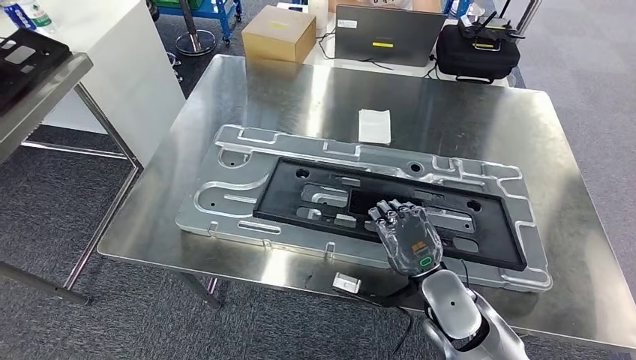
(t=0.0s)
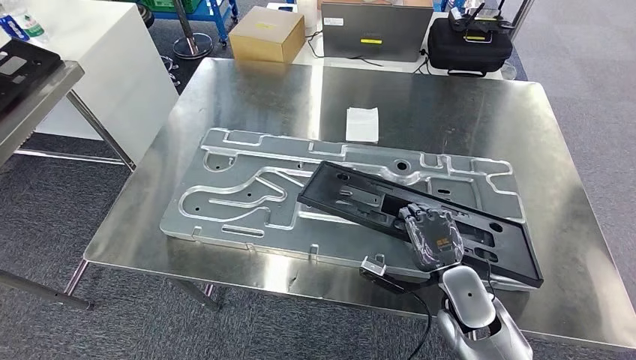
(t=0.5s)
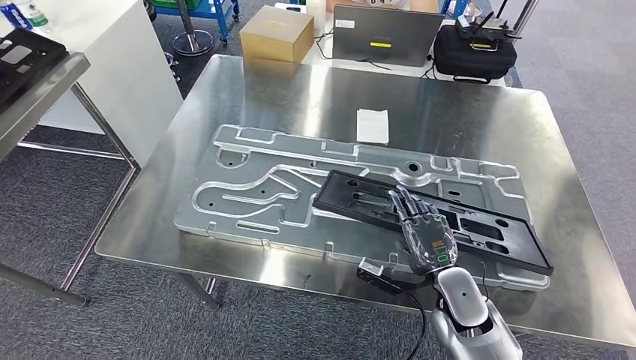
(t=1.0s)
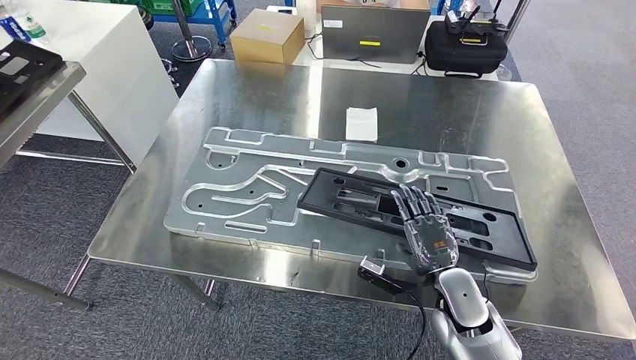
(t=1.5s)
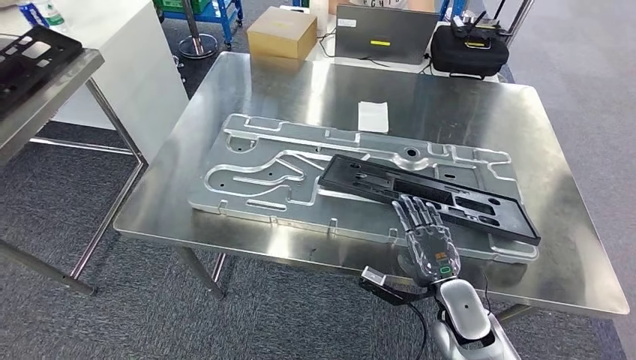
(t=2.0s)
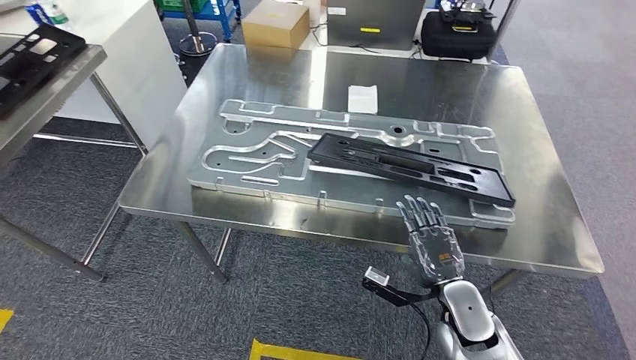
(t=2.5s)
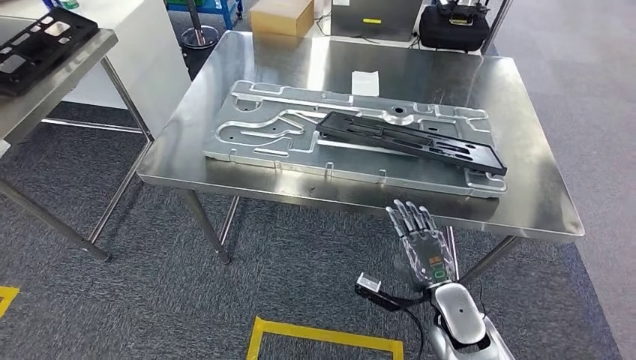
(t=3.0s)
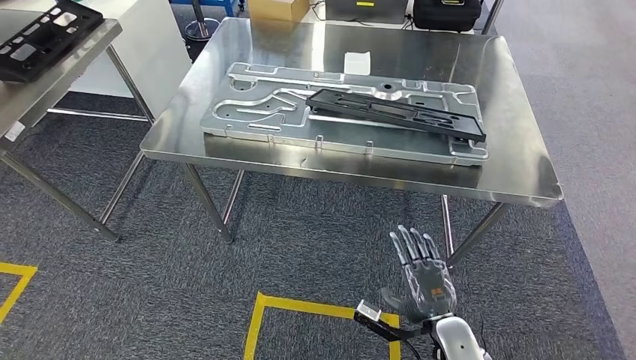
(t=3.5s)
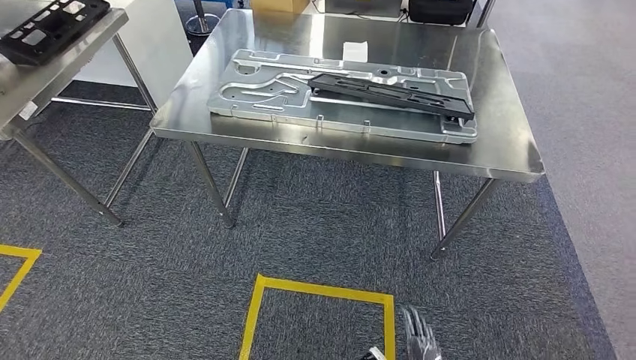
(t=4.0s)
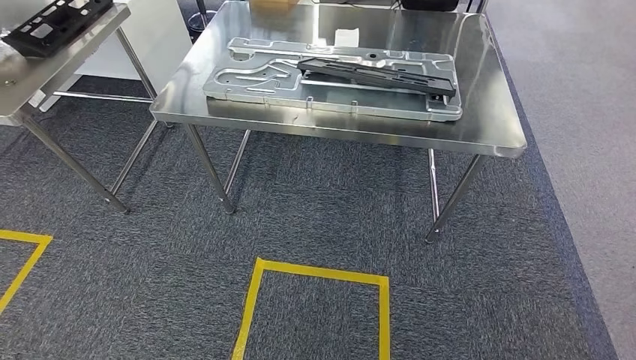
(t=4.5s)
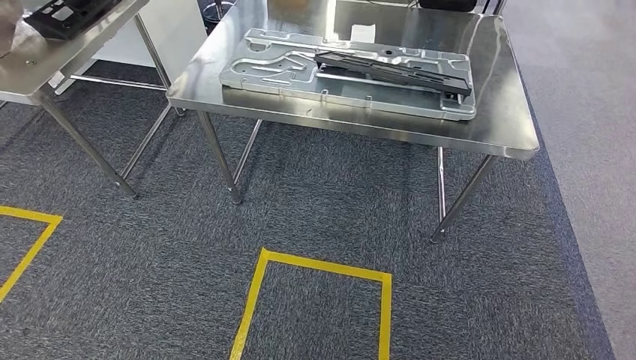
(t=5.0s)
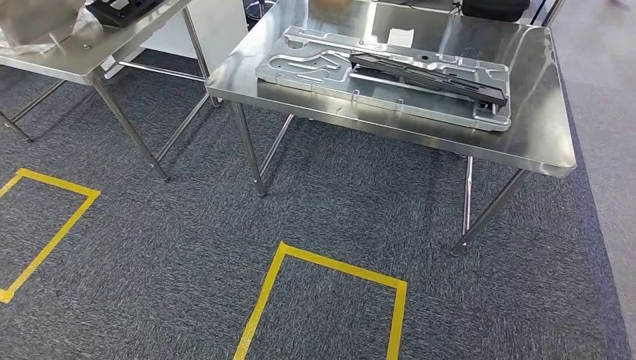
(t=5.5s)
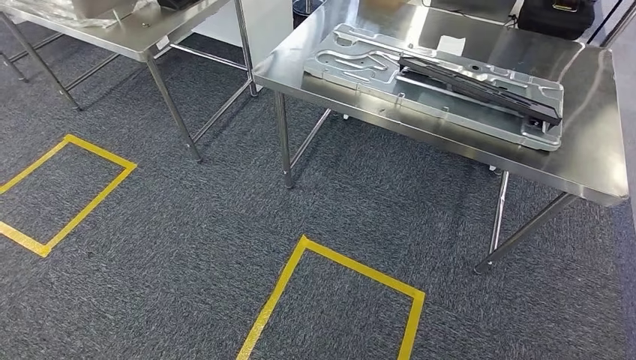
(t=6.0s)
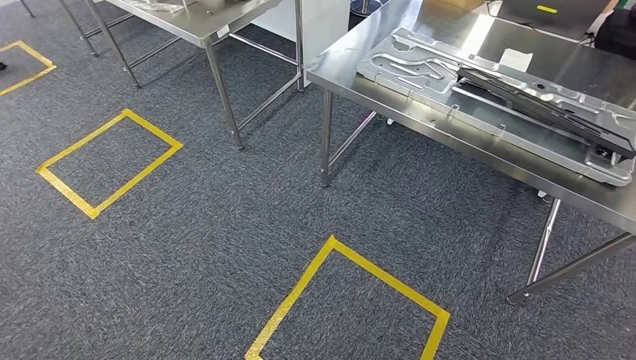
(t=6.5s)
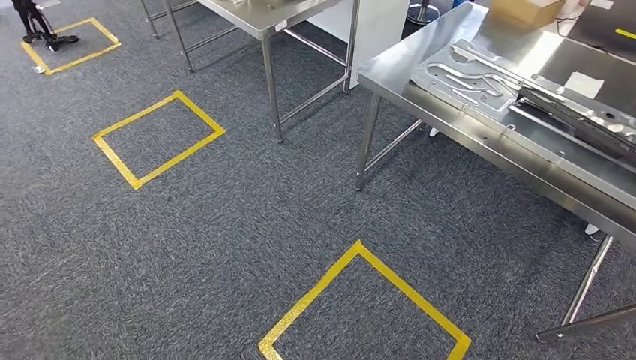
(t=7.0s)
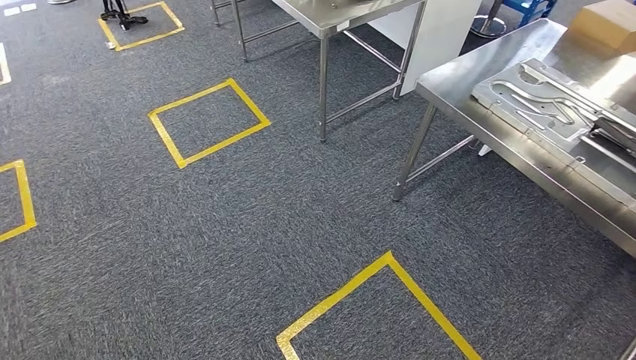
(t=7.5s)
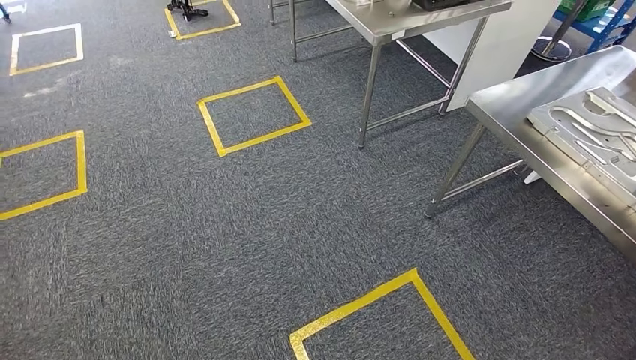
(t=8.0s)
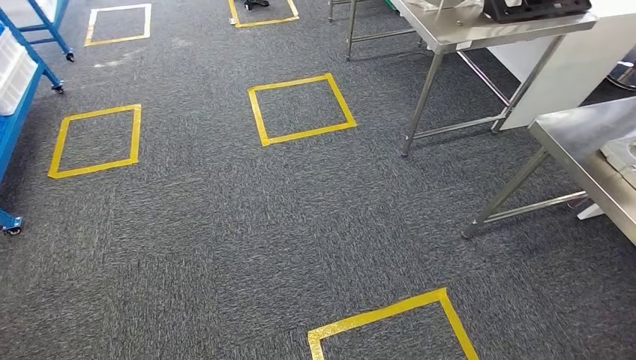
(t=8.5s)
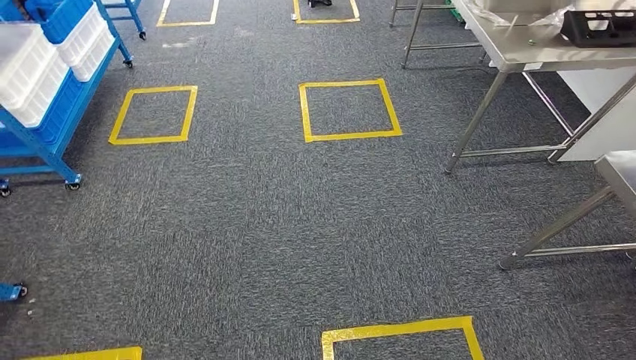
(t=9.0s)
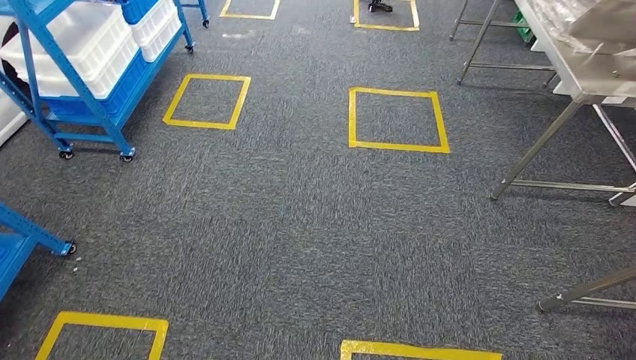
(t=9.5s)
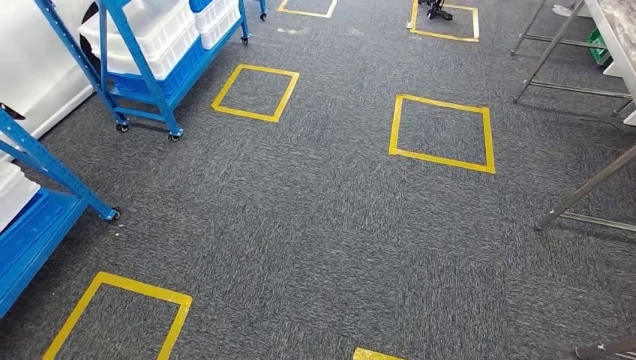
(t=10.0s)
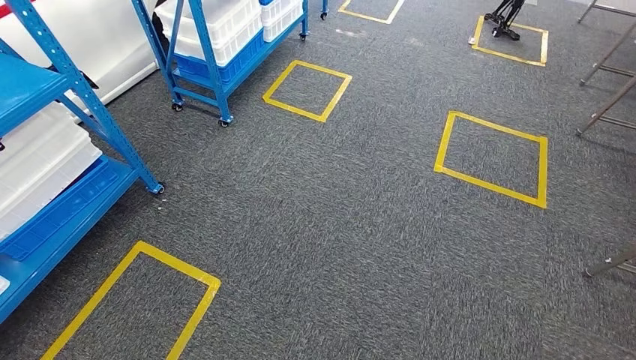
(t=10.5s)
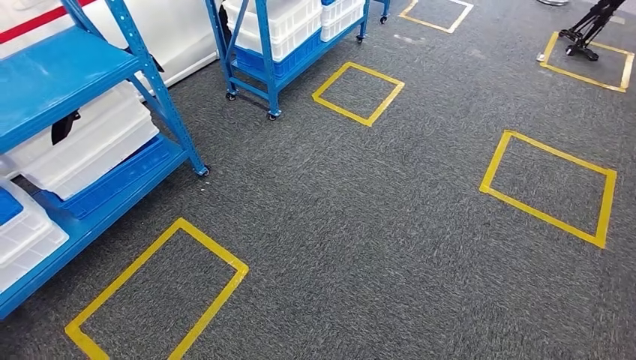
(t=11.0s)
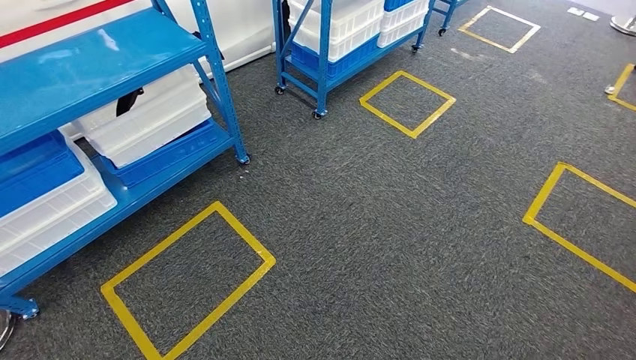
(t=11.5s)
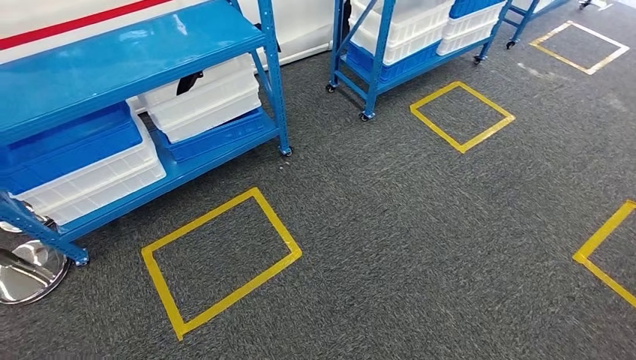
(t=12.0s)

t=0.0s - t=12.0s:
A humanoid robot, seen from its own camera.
Step, t=0.0s - t=4.5s: Insert the large material into the corresponding slot on the workbench.

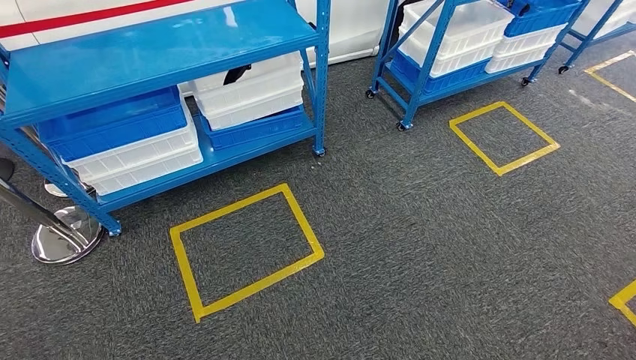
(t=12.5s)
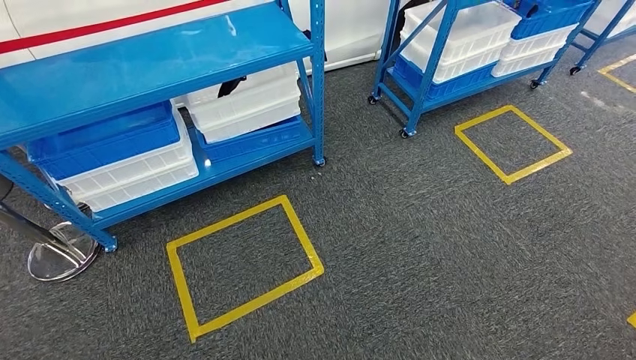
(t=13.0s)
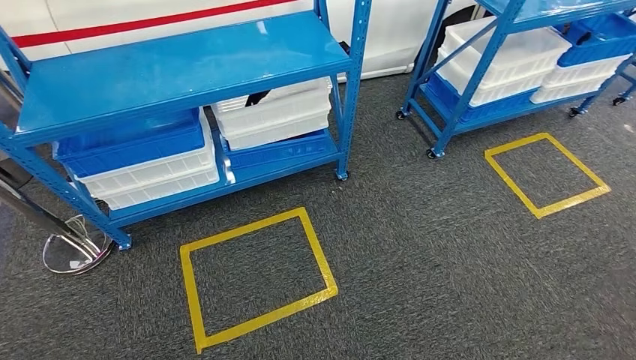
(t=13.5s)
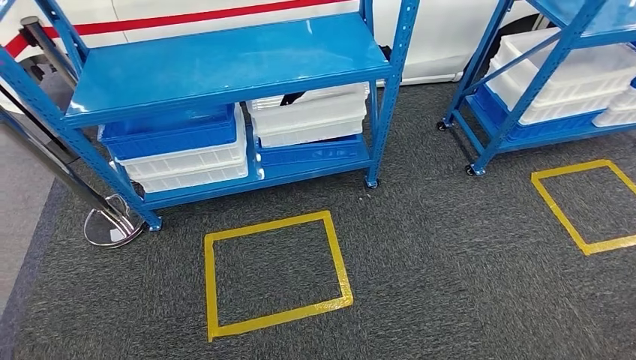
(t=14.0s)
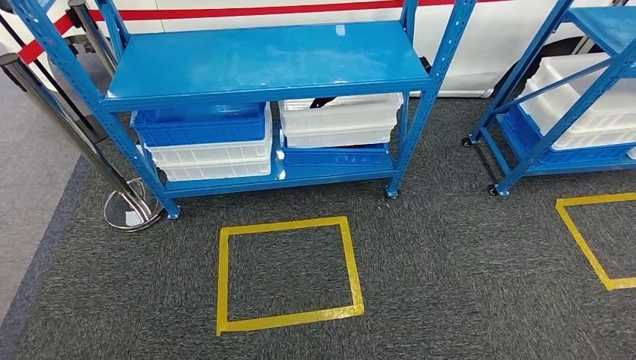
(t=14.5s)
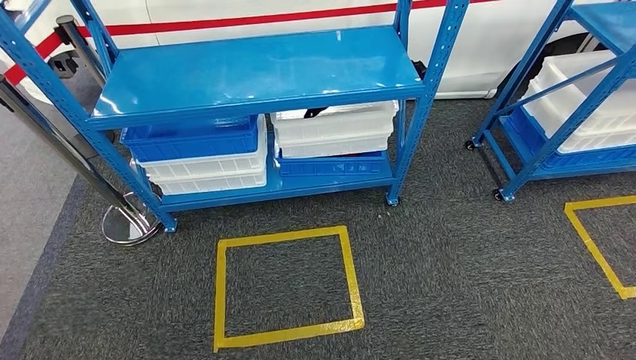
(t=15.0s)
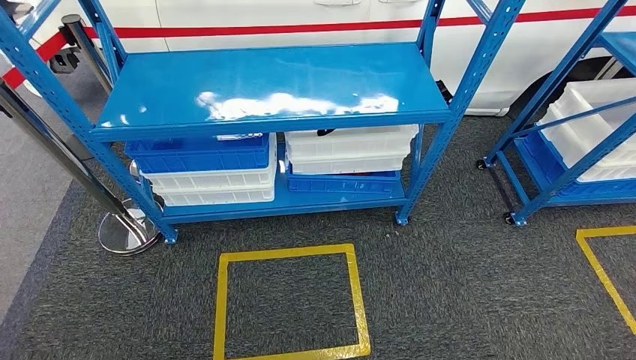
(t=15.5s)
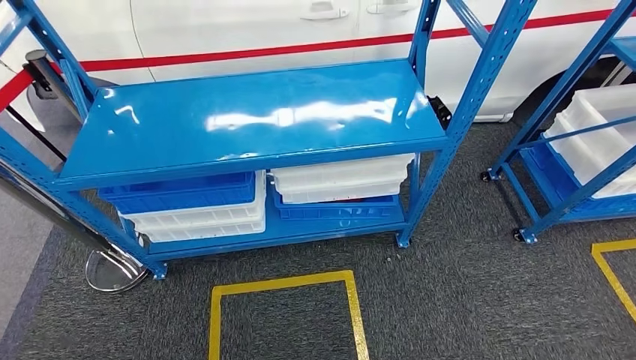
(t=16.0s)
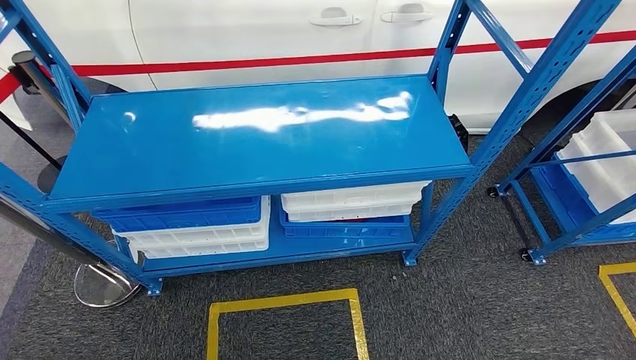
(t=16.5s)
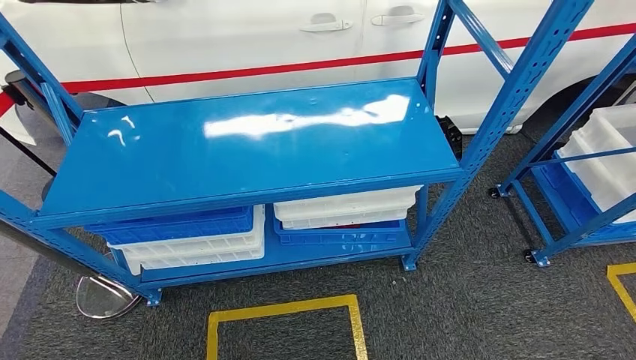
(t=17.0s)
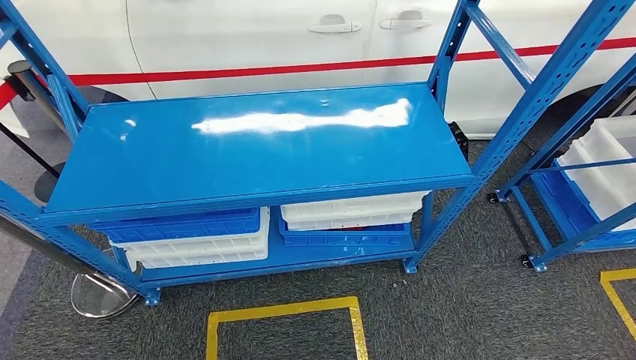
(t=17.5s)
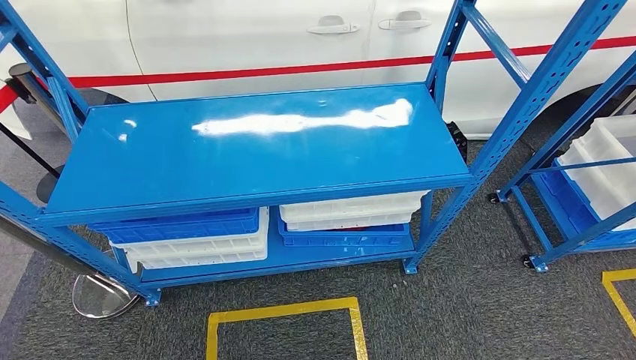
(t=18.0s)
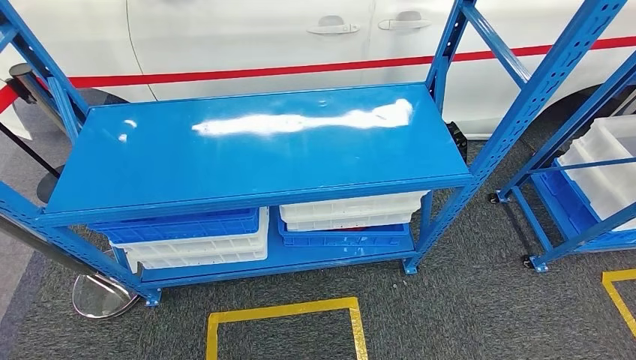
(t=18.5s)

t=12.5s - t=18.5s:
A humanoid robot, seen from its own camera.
Step, t=12.5s - t=18.5s: Return to the initial position at the shelf.

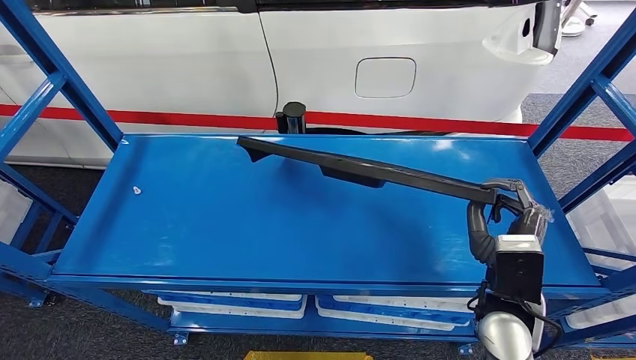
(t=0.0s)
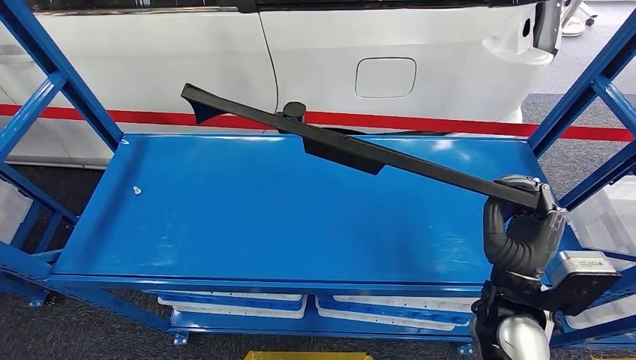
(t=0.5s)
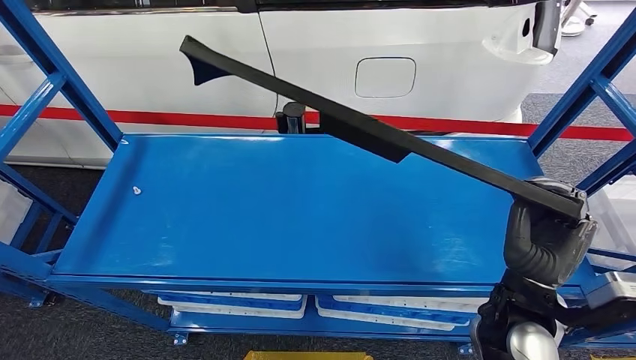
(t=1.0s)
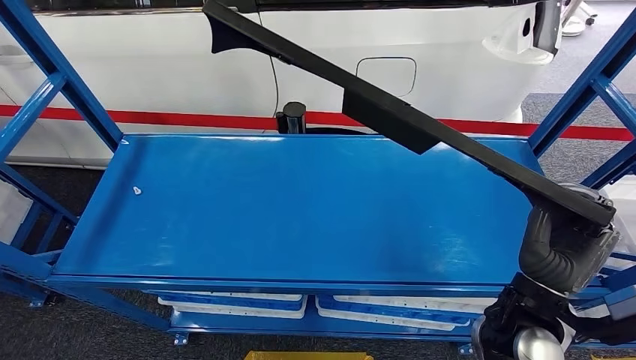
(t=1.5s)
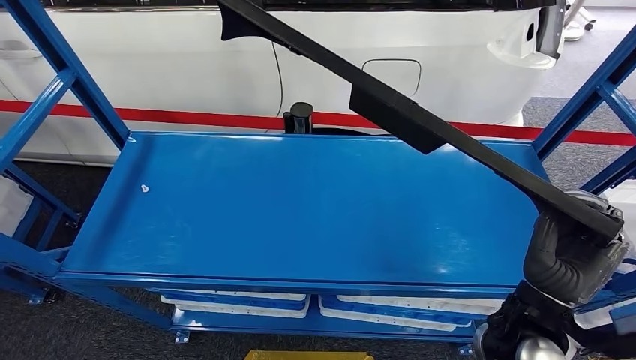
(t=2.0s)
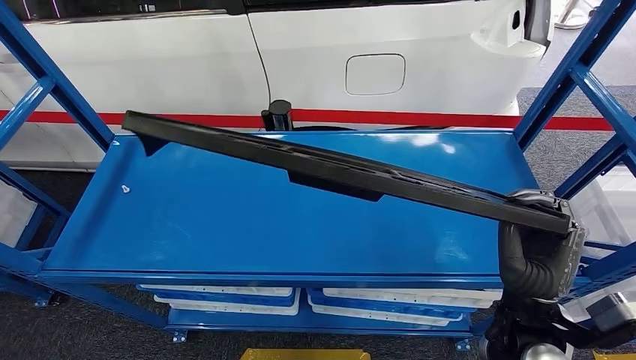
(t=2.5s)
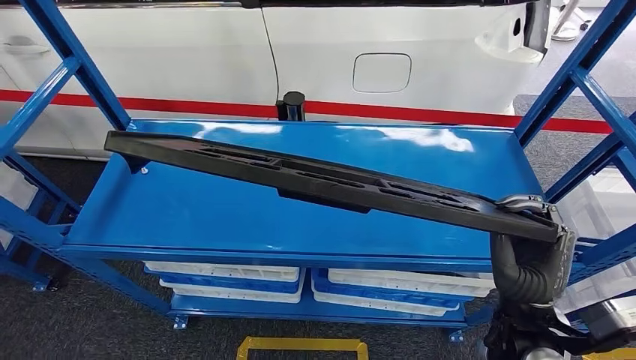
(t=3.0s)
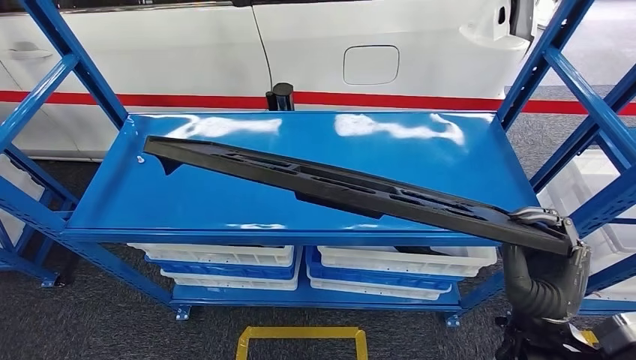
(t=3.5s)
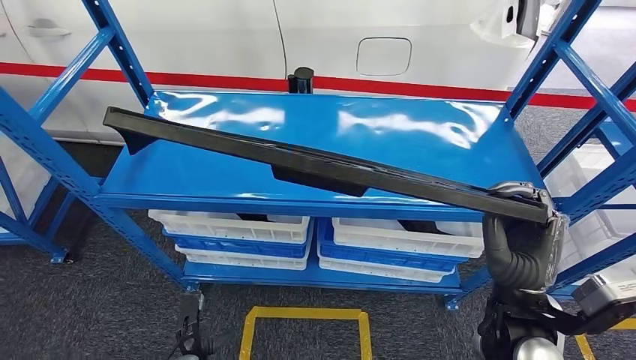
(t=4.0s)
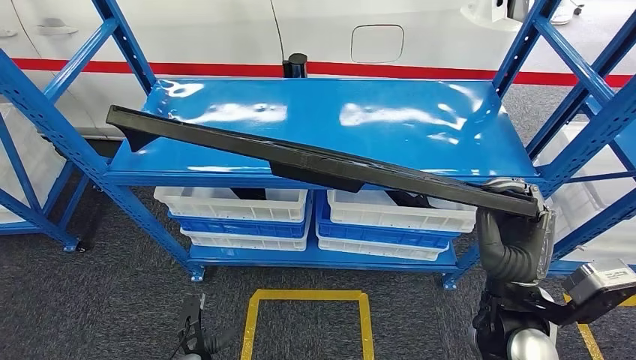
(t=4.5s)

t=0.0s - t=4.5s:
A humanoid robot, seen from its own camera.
Step, t=0.0s - t=3.0s: Pick up the large material from the shelf.
